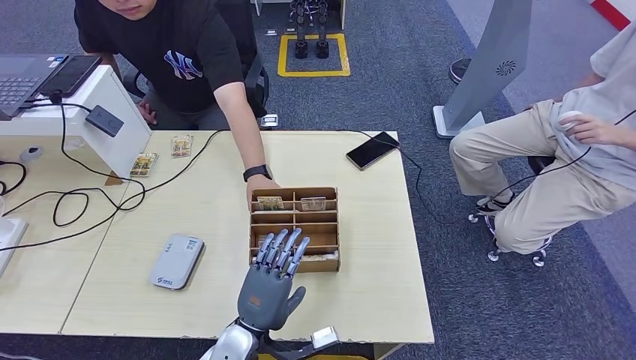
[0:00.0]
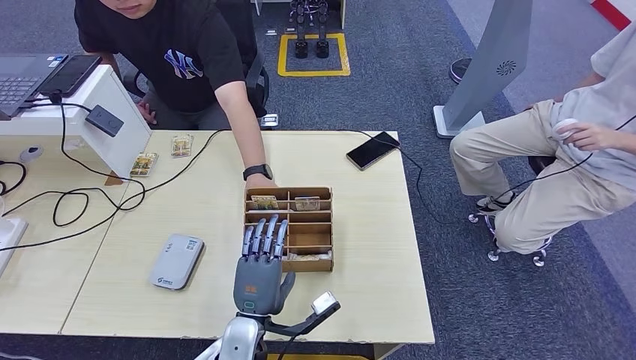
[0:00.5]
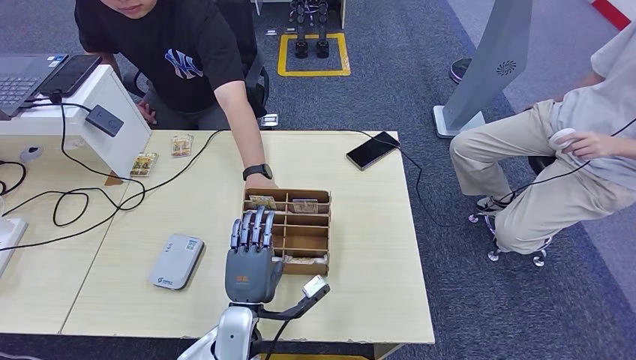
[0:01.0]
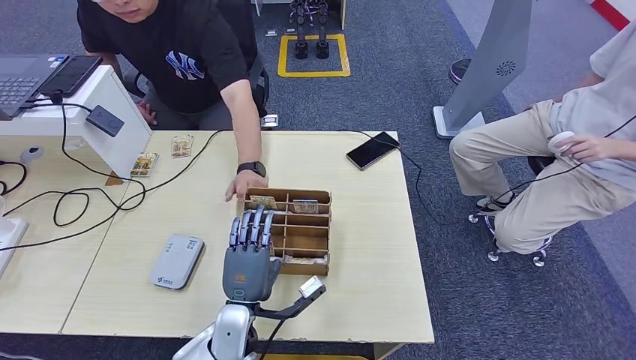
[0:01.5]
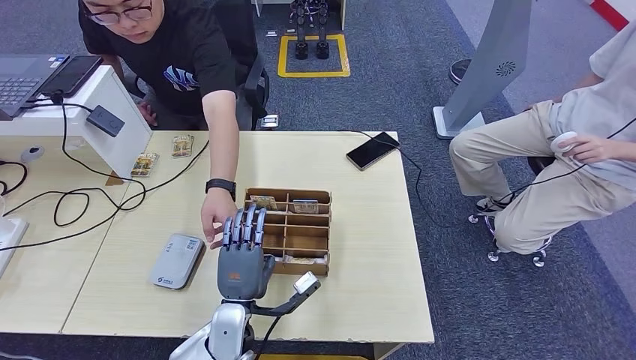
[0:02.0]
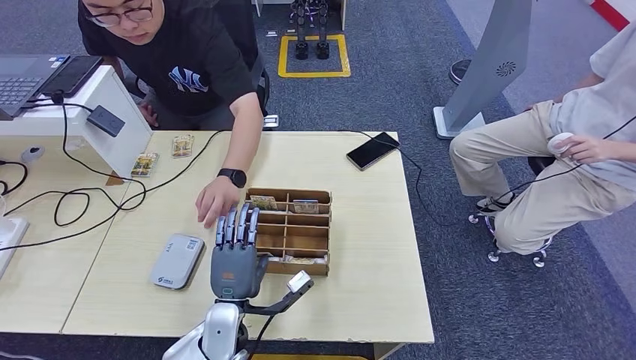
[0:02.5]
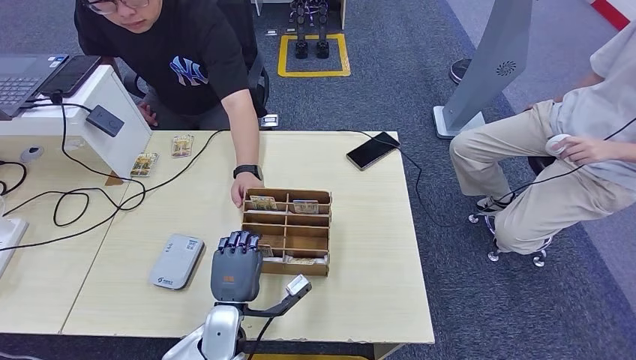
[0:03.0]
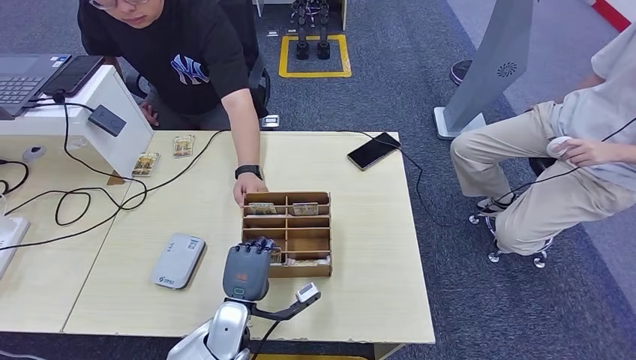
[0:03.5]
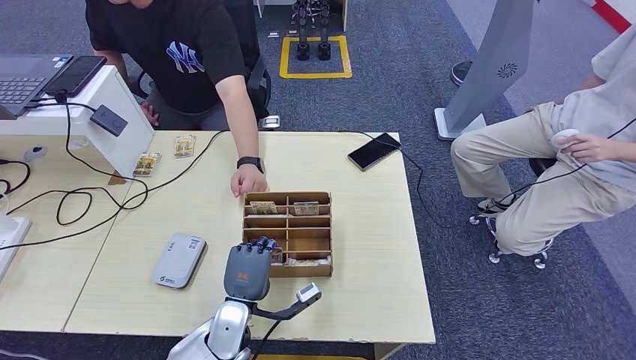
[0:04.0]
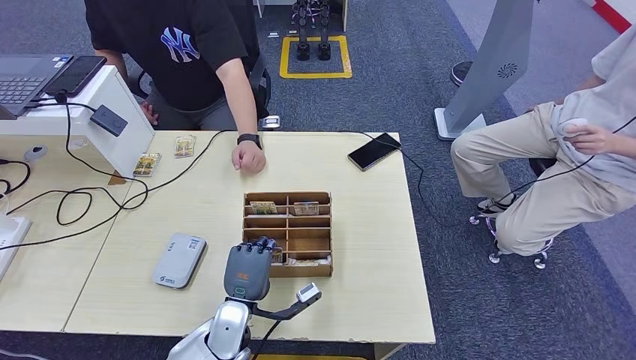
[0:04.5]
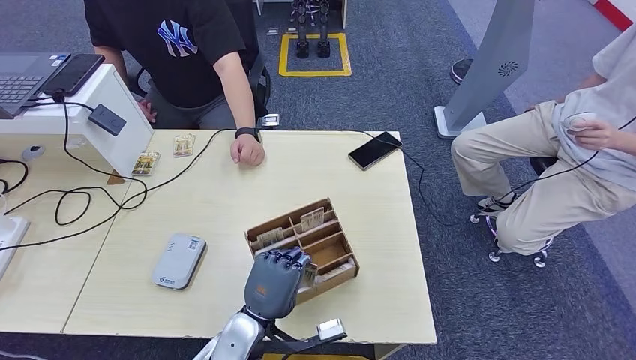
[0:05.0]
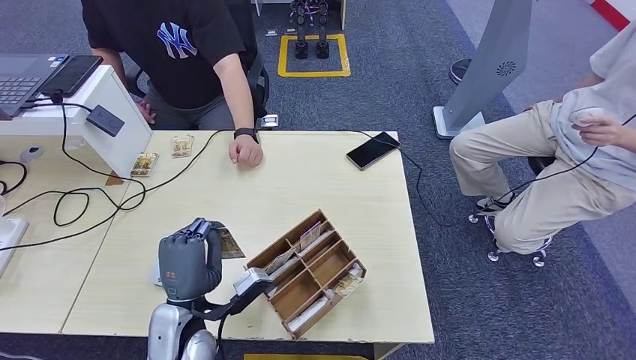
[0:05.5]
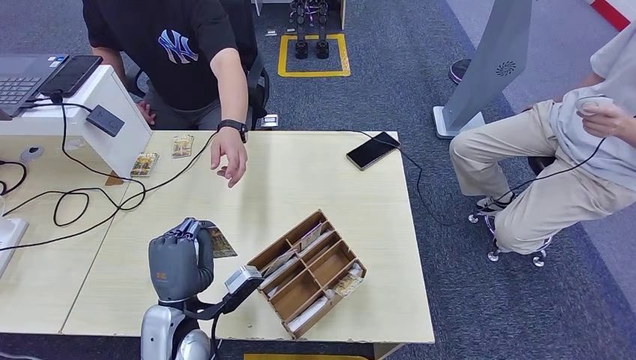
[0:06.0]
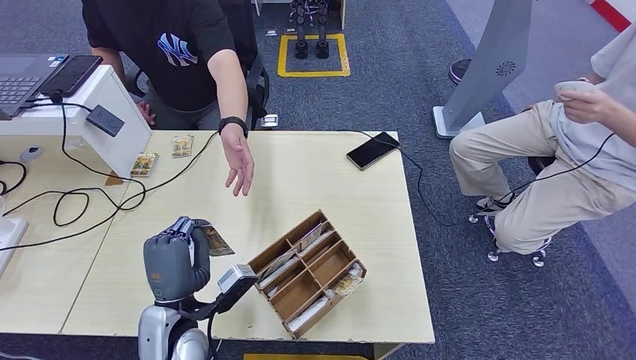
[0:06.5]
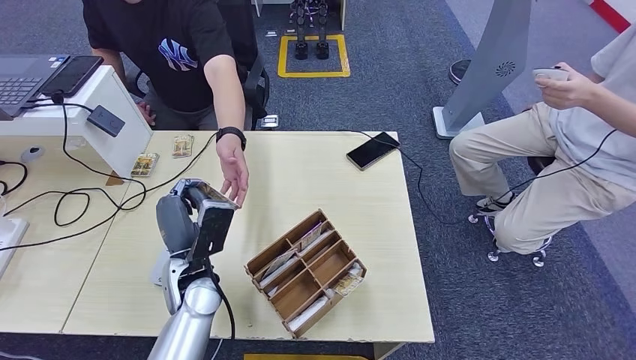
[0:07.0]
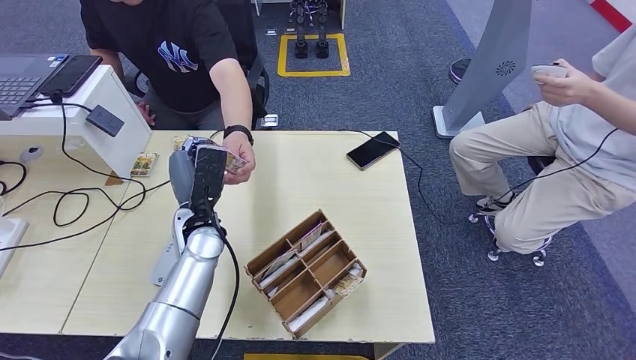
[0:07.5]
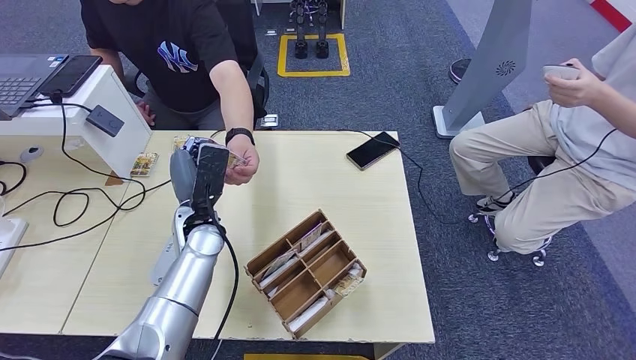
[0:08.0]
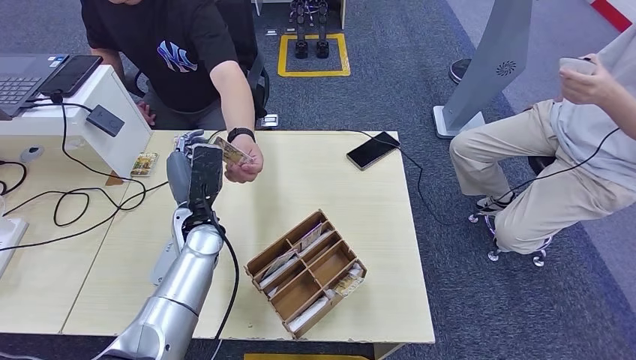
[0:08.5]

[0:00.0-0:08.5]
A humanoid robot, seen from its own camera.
Step, 0:00.0 to 0:06.0: Pick up the room key from the key card box.
Step, 0:06.5 to 0:08.5: Hand the room key to the person.
0:02.0 to 0:04.0: The hands make only small movements.
0:06.5 to 0:08.5: The left hand heads forward, covering approximately 15 cm.
